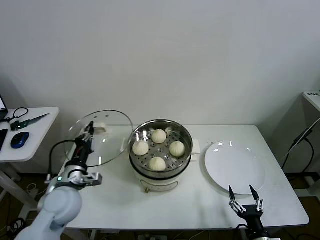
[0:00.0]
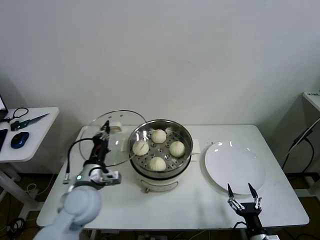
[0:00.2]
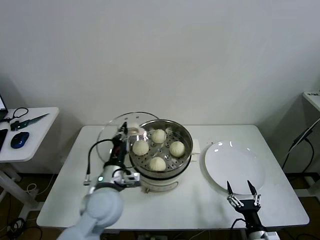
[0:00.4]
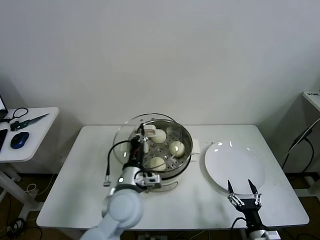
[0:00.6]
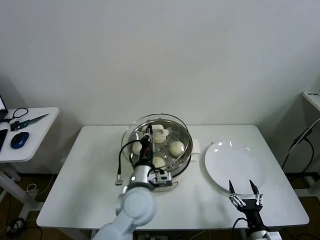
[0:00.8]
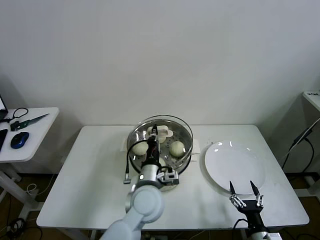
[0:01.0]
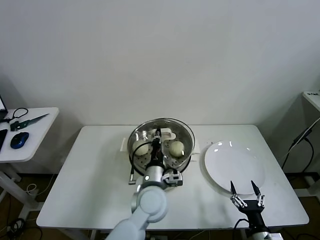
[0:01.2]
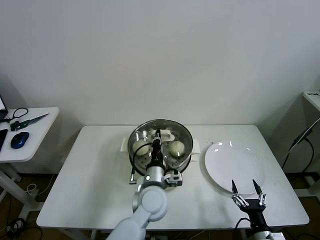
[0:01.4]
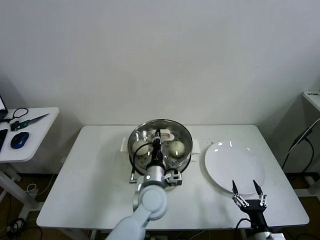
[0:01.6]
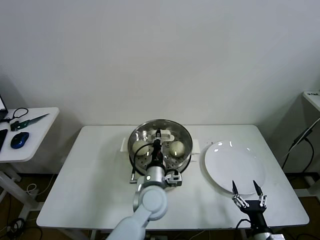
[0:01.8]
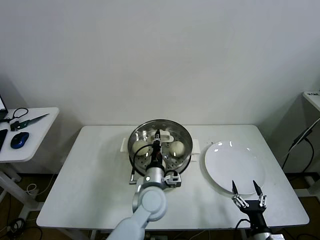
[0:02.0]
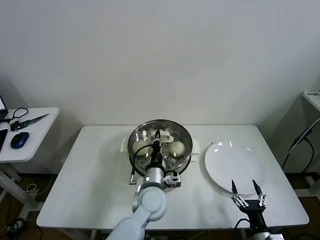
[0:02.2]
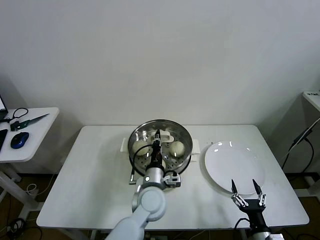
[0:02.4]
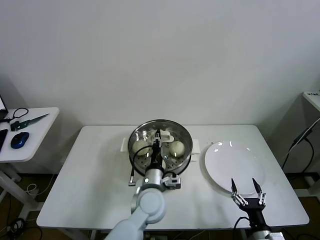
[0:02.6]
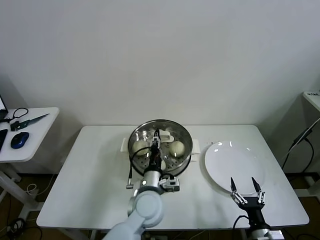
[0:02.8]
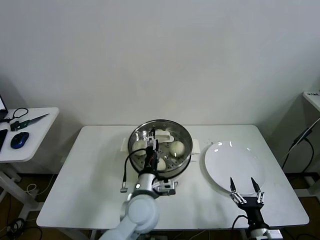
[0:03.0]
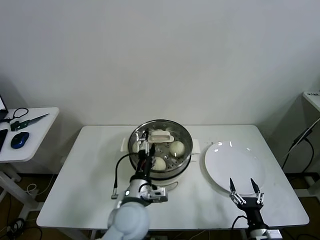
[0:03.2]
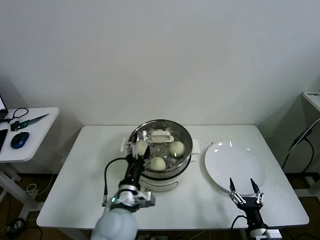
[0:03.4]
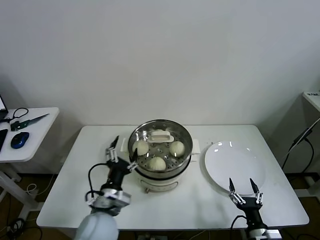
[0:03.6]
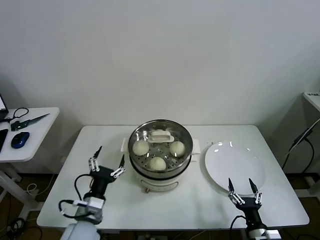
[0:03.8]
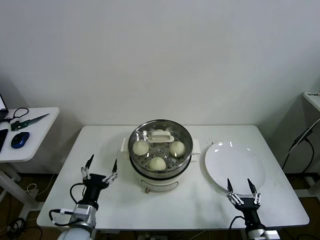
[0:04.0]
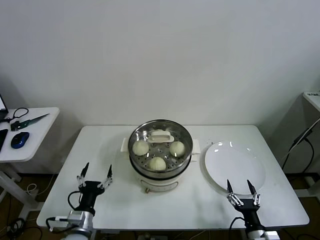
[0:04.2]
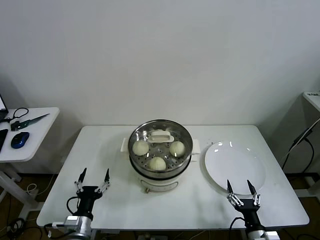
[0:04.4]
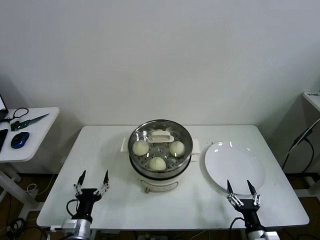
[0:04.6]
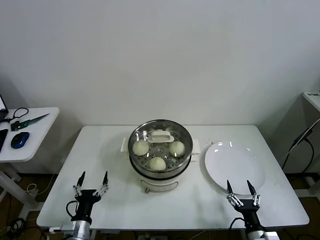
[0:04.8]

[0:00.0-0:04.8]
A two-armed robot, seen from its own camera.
Task of the whole recording: take steamed baozi put them in steamer then cover it.
Step, 0:00.0 to 0:03.2: Place the pot lid on the steamer with left gripper.
0:00.0 to 0:01.6: The left gripper is displaced to the right by some 25 cm.
0:01.6 to 0:03.2: The left gripper shifts by approximately 5 cm, and opens its fingers.
0:03.2 to 0:04.8: The left gripper heads to the left, downward and backward, covering about 25 cm.
